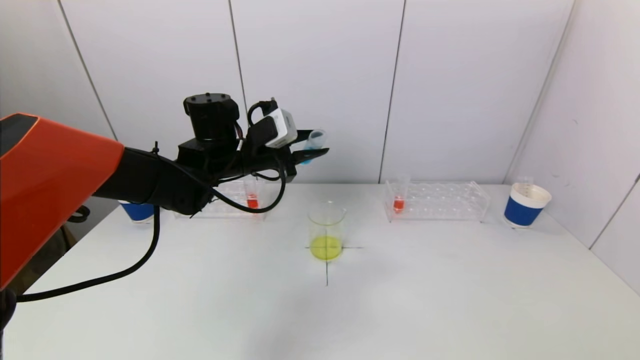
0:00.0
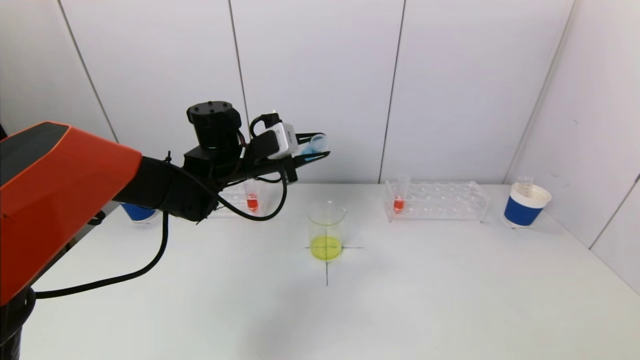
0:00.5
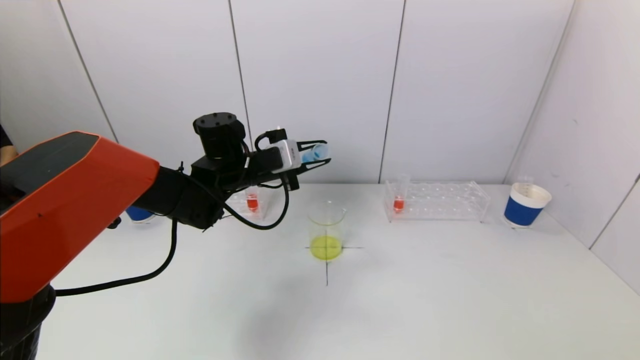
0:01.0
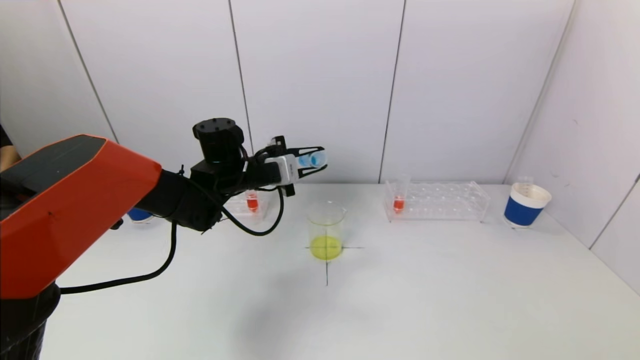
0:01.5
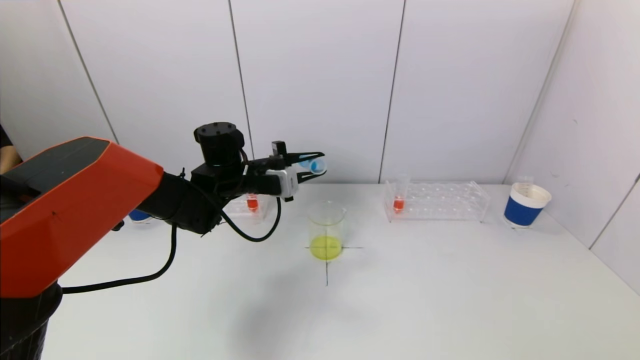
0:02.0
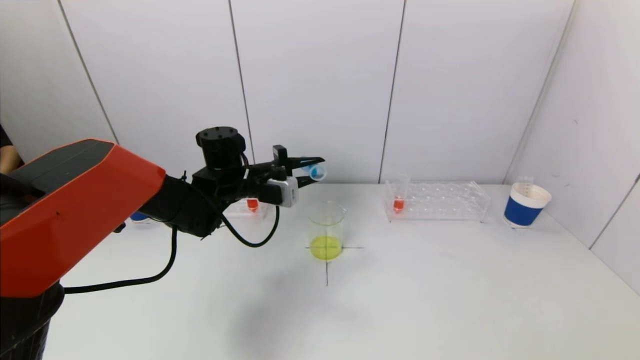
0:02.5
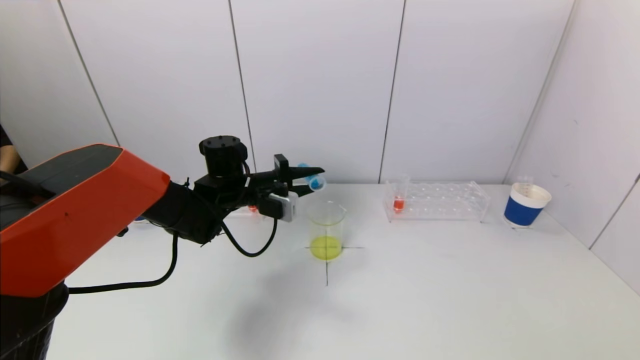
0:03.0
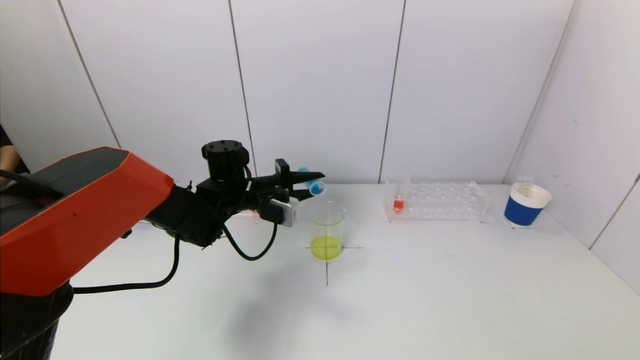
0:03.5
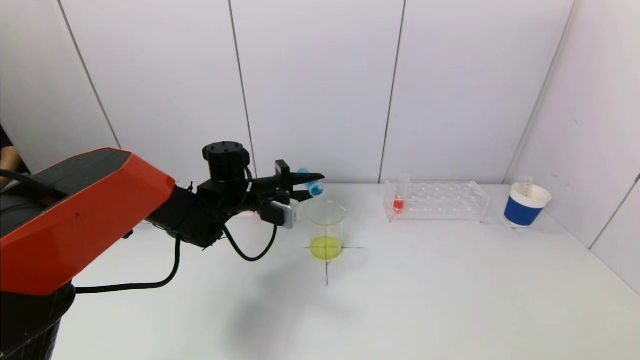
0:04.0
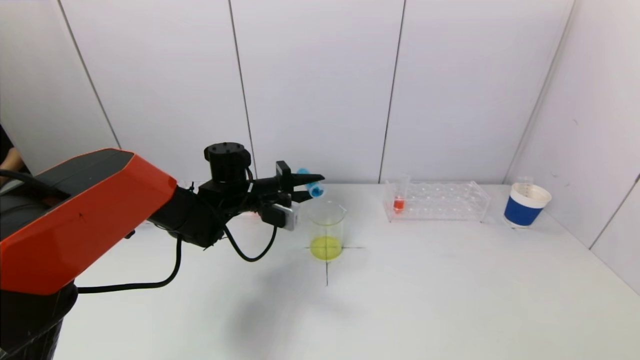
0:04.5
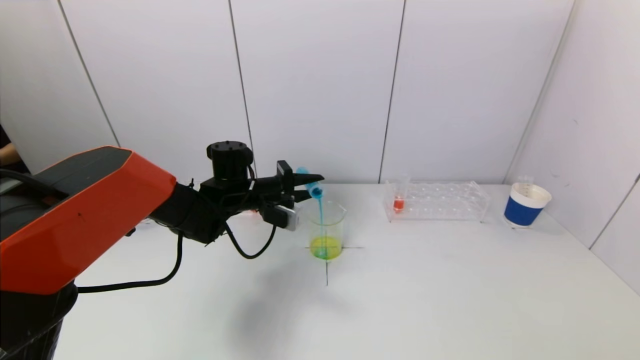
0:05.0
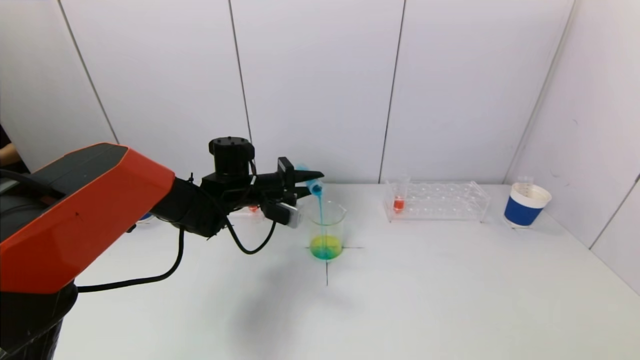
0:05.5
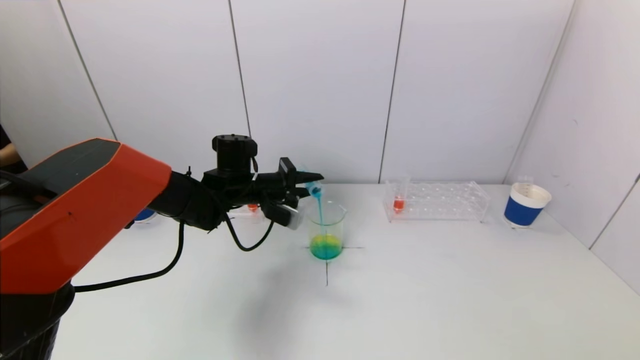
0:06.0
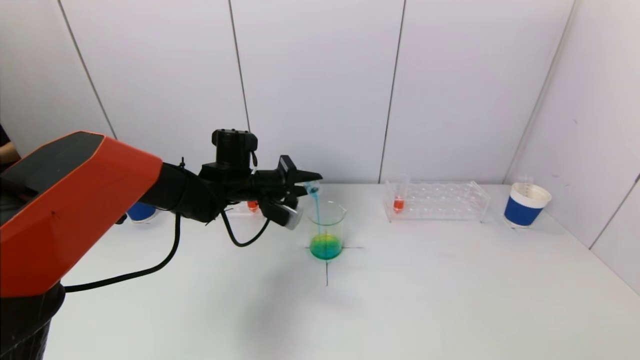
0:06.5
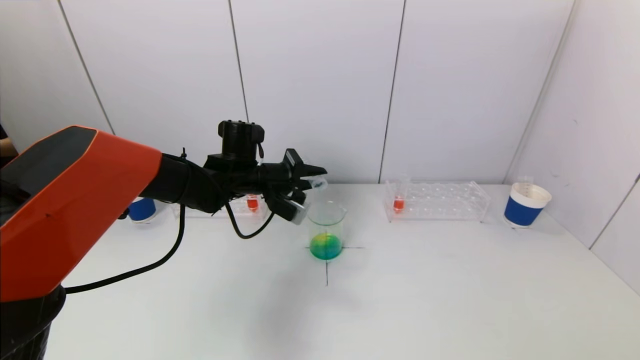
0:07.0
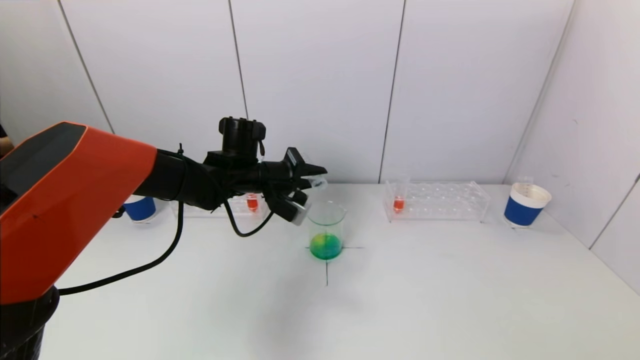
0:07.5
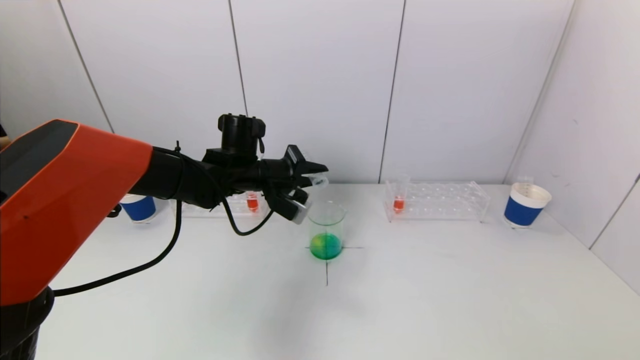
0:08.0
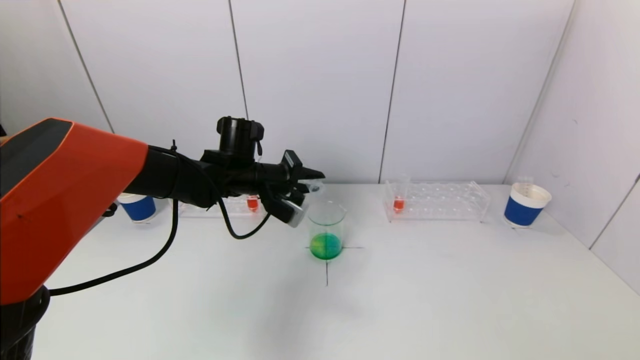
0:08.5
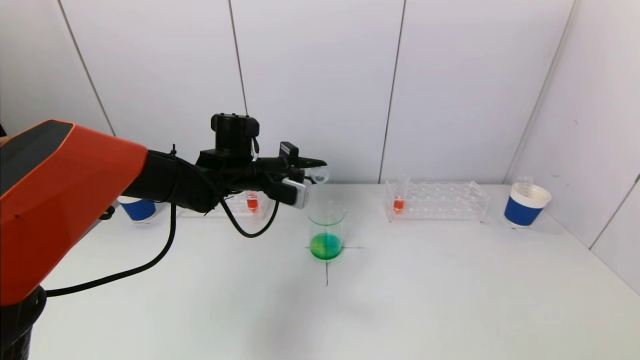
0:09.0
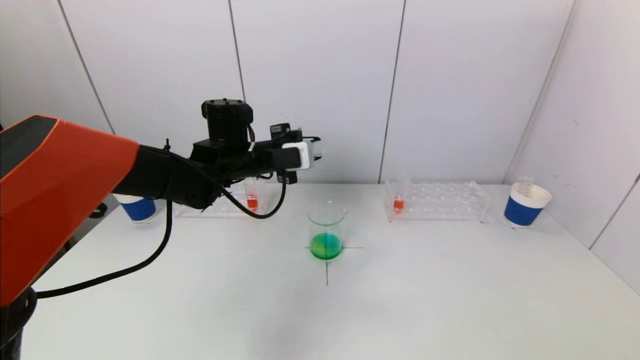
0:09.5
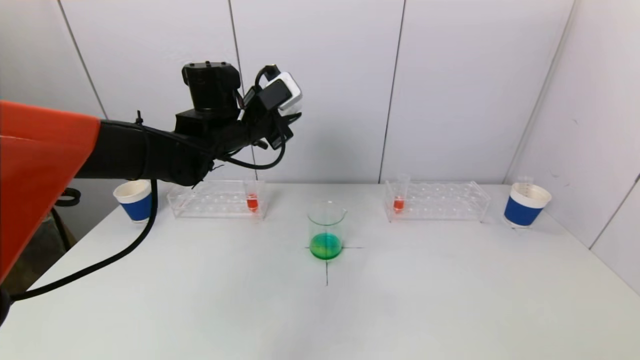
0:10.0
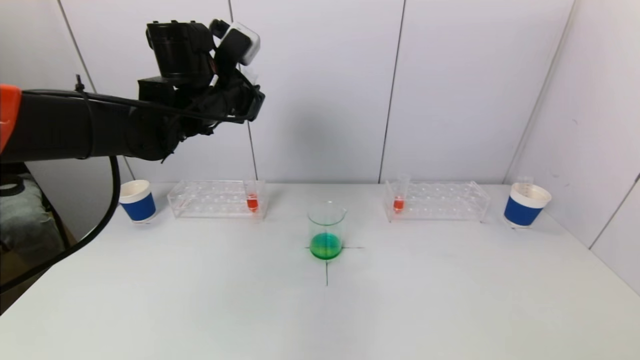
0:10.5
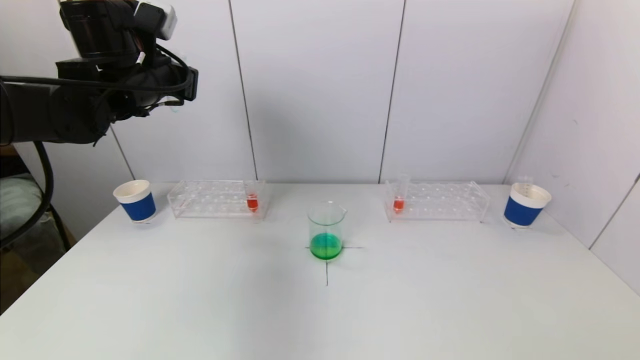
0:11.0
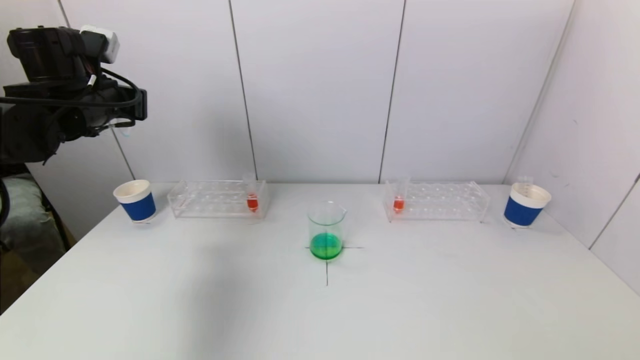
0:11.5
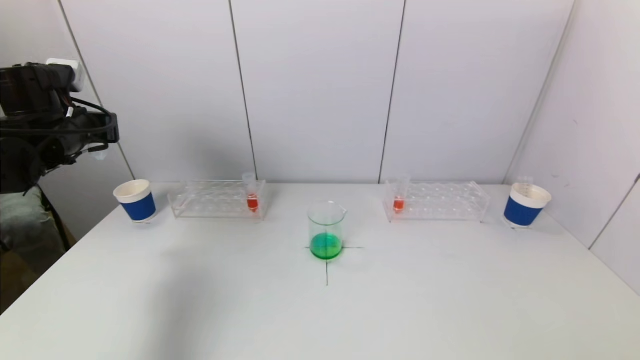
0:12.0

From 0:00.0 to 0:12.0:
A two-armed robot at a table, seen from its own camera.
Task of the whole recording: pick up a test tube with pigment on left test tube rack and a test tube with pigment on right test tube rack by grippers and pour them into the beaker.
Step, from 0:00.0 to 0:08.0: Pour the blue reagent into the graduated cylinder with the left gripper.
From 0:00.0 to 0:02.0: The left gripper moves roughly 5 cm.
From 0:02.0 to 0:04.0: The grippers stay close to where they were, moving slightly.
From 0:04.0 to 0:06.0: The grippers stay close to where they were, moving slightly.
From 0:06.0 to 0:08.0: There are only small adjustments of the grippers.
From 0:08.0 to 0:10.0: The left gripper goes some 10 cm upward.
From 0:10.0 to 0:12.0: The left gripper goes roughly 25 cm to the left.

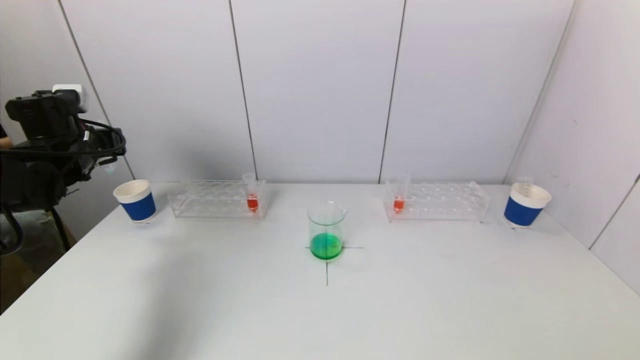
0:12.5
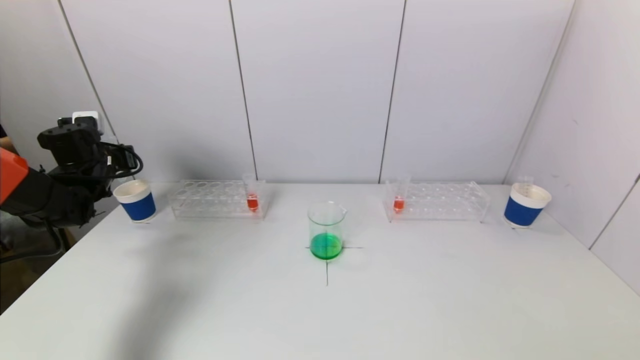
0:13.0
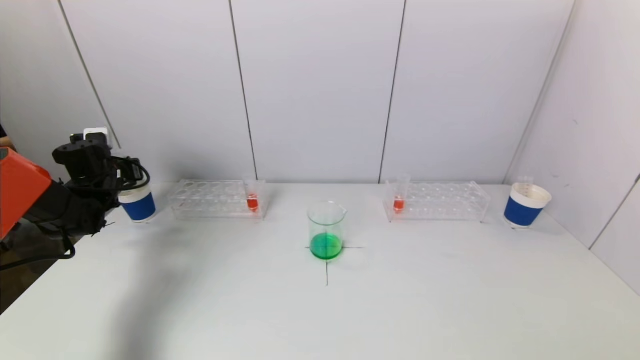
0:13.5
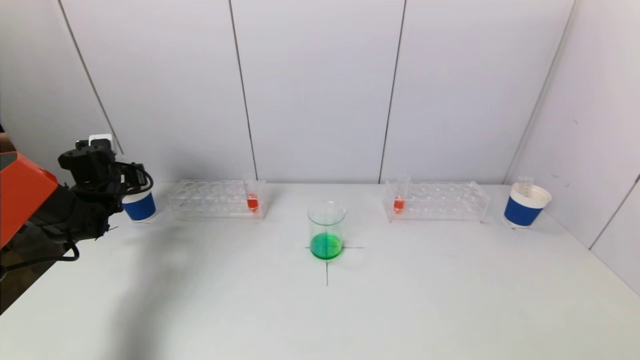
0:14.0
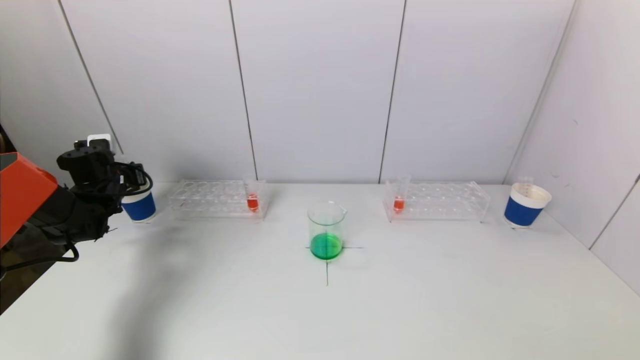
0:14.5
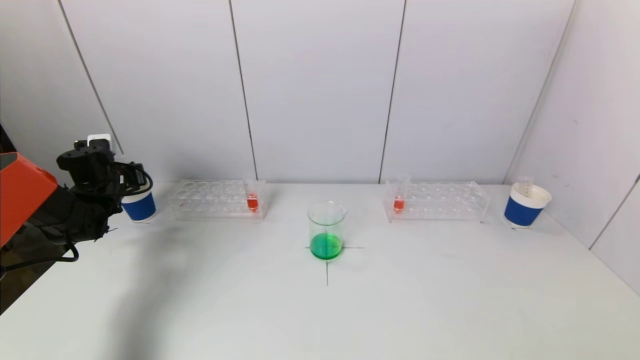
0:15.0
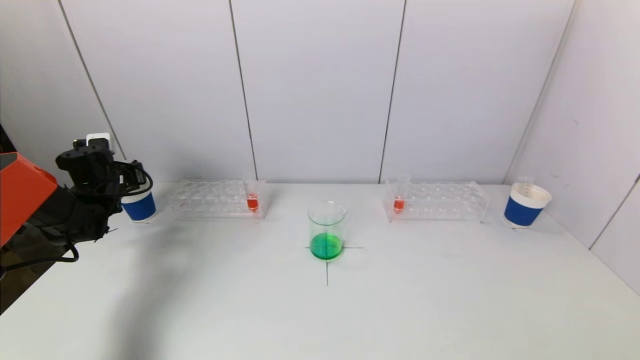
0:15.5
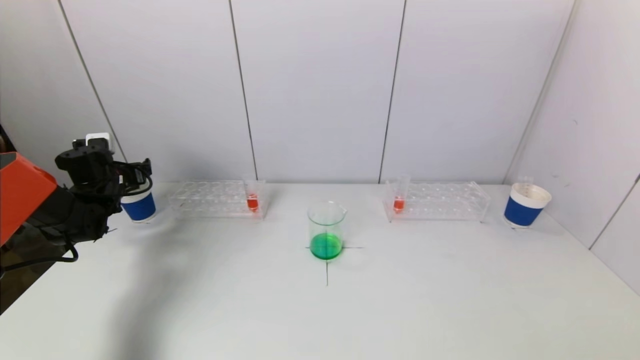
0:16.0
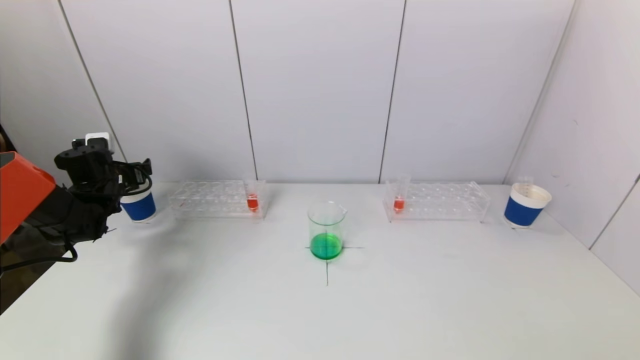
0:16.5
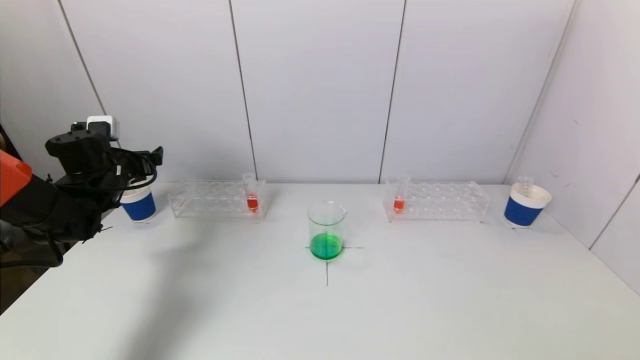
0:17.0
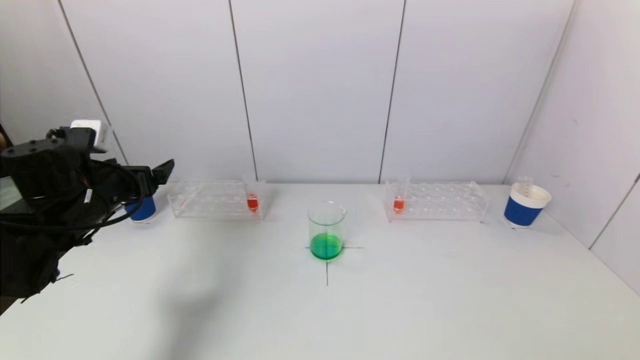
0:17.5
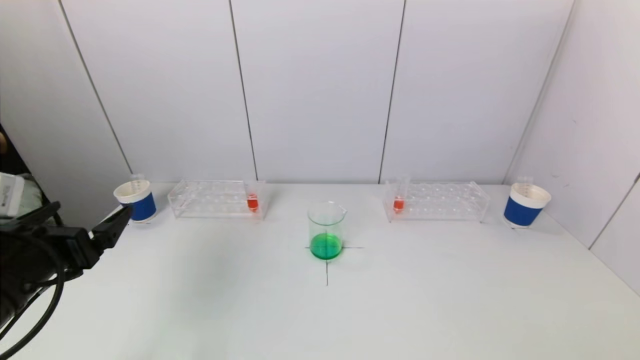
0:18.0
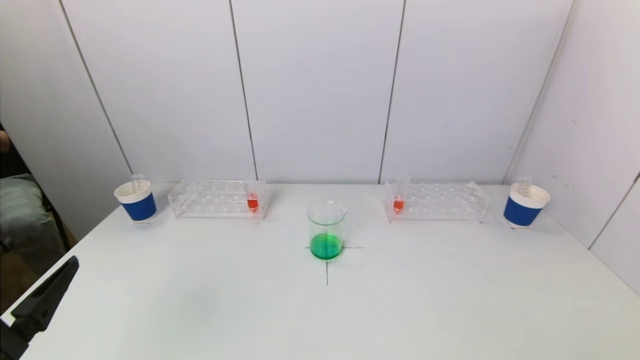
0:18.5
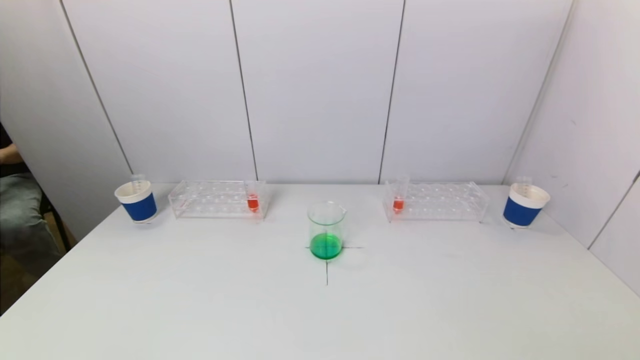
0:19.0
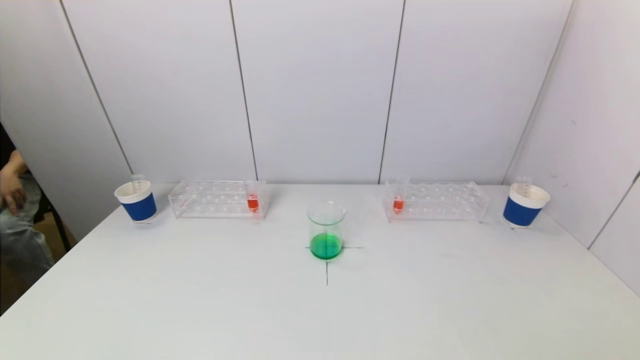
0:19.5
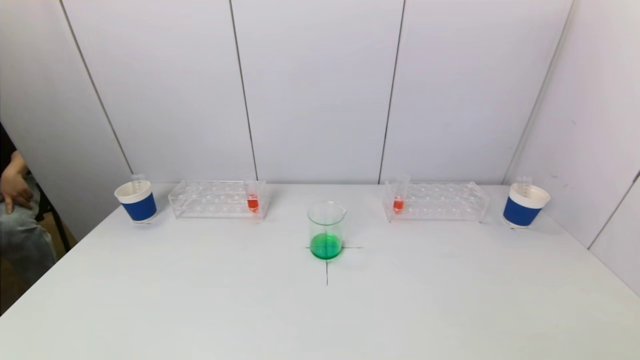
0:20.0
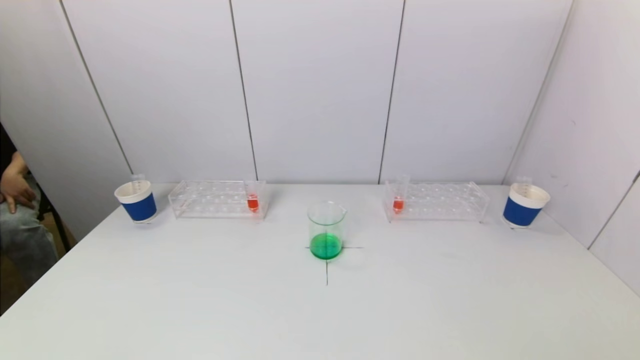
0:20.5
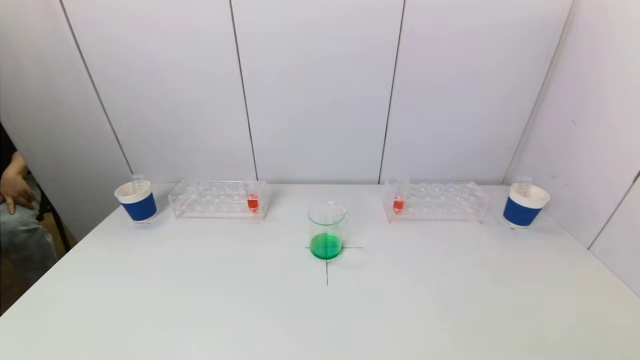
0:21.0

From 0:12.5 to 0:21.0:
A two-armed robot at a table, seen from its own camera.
Task of the whole recording: pick up a test tube with pigment on left test tube rack and a test tube with pigment on right test tube rack by grippers and pour them into the beaker.
Step, from 0:12.5 to 0:16.5: Place the test tube into the paper cup with the left gripper.
From 0:12.5 to 0:14.5: The left gripper is displaced downward and forward by about 10 cm.
From 0:16.5 to 0:19.0: The left gripper shifts approximately 50 cm backward.
